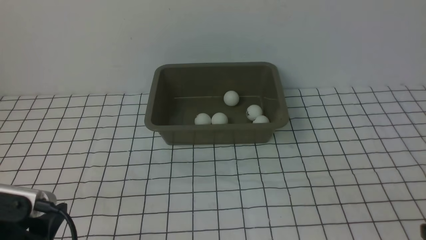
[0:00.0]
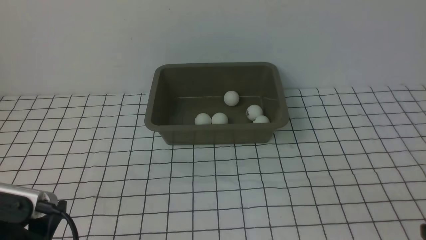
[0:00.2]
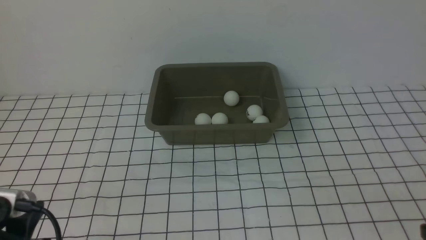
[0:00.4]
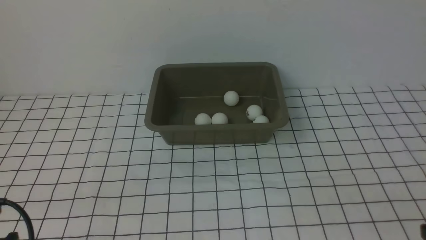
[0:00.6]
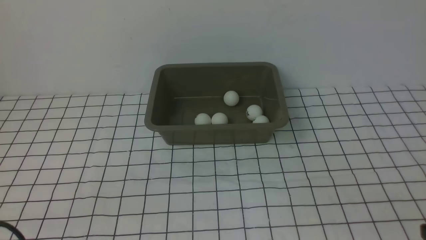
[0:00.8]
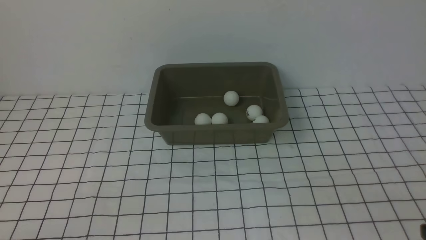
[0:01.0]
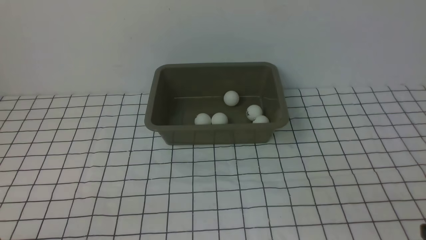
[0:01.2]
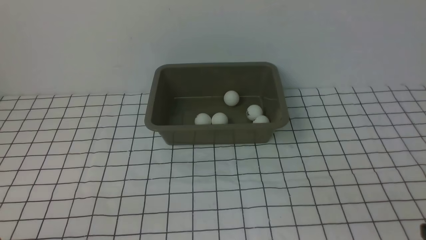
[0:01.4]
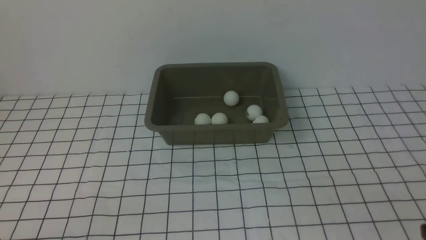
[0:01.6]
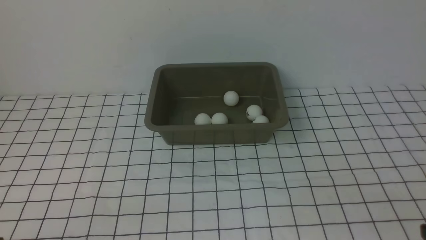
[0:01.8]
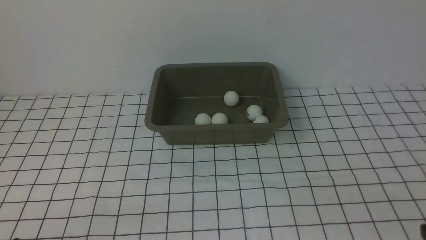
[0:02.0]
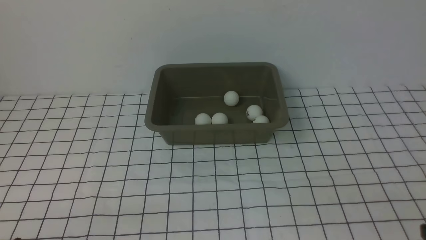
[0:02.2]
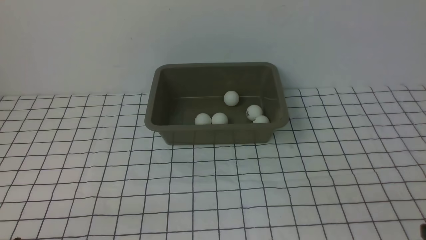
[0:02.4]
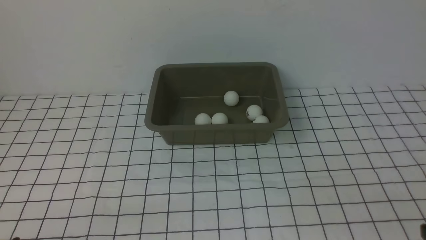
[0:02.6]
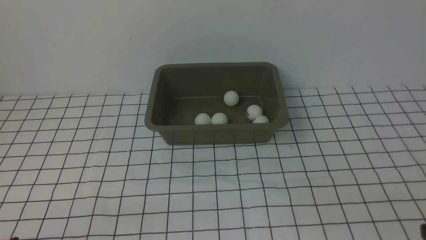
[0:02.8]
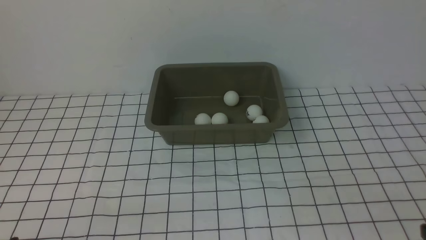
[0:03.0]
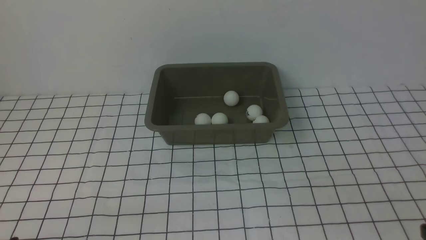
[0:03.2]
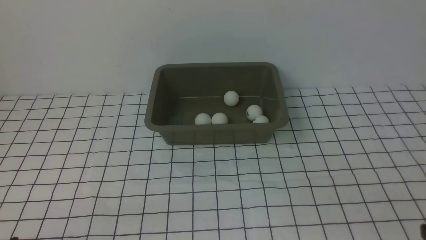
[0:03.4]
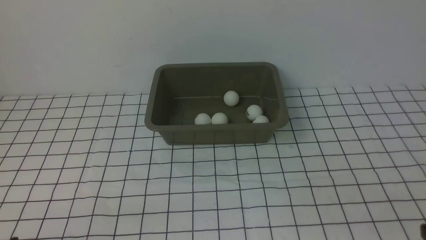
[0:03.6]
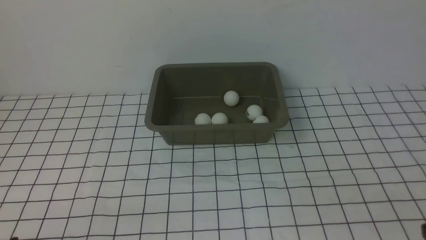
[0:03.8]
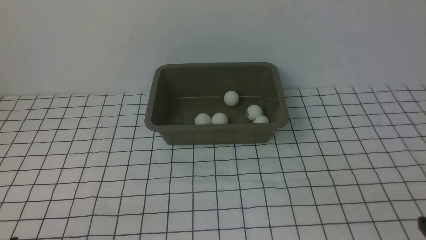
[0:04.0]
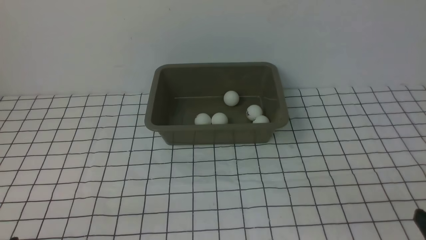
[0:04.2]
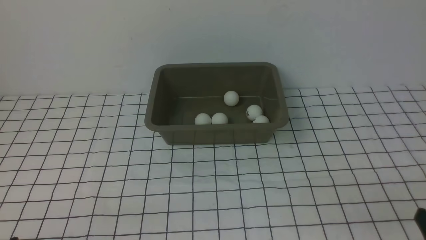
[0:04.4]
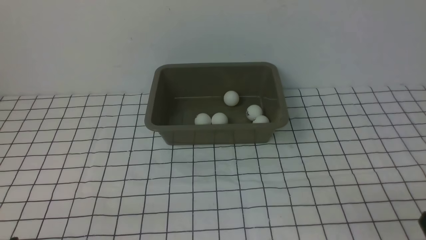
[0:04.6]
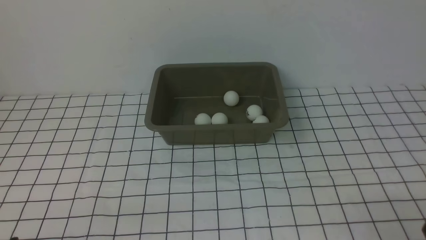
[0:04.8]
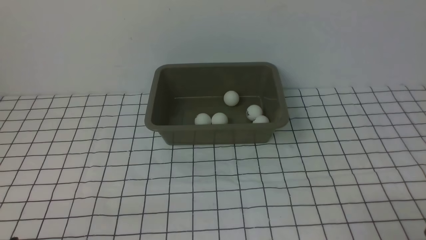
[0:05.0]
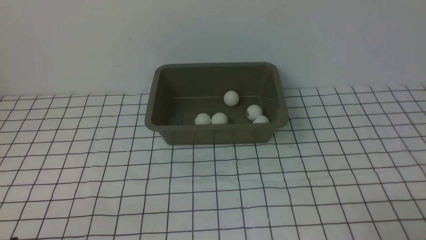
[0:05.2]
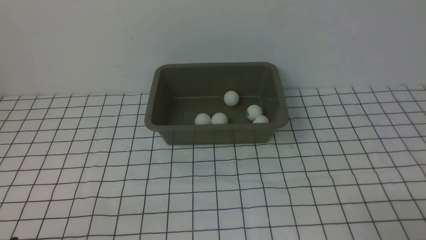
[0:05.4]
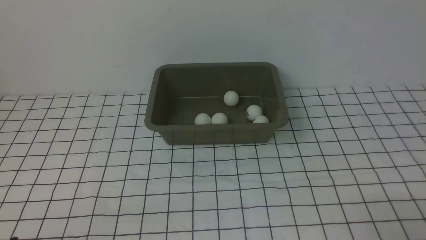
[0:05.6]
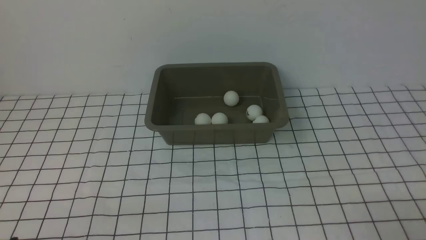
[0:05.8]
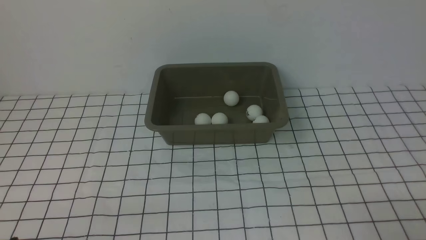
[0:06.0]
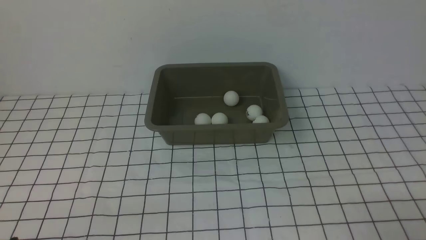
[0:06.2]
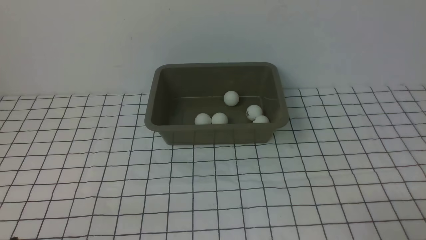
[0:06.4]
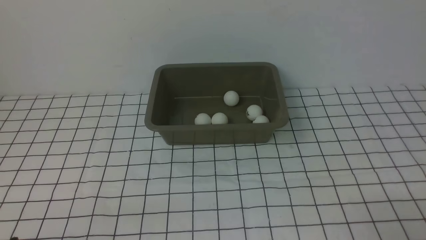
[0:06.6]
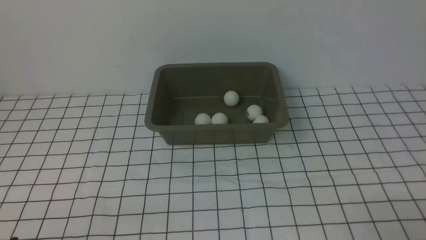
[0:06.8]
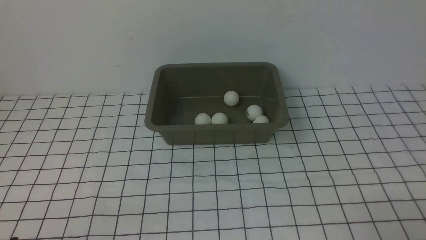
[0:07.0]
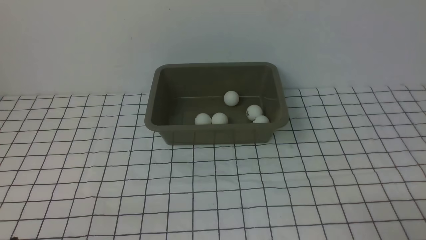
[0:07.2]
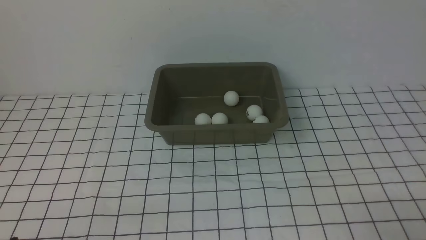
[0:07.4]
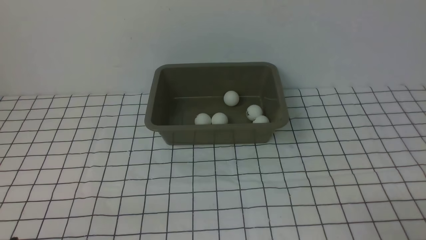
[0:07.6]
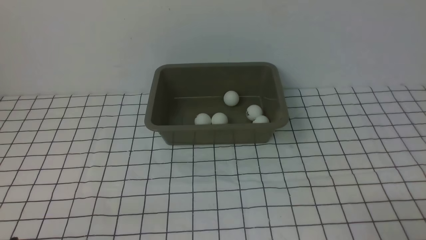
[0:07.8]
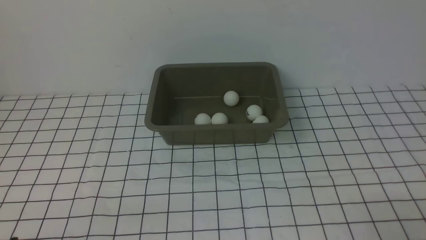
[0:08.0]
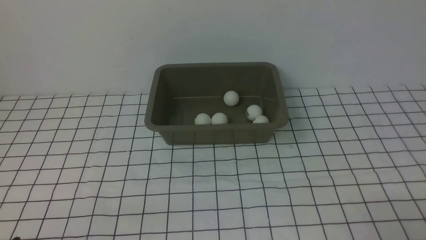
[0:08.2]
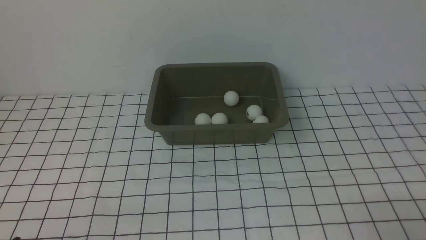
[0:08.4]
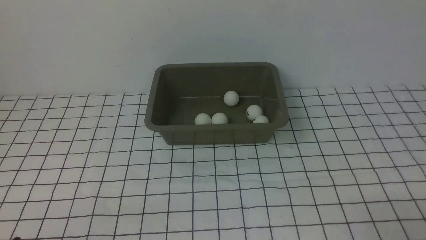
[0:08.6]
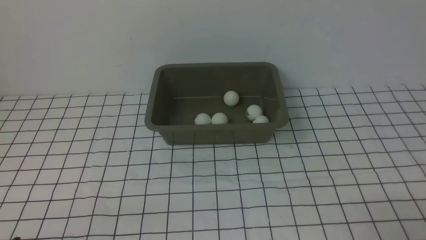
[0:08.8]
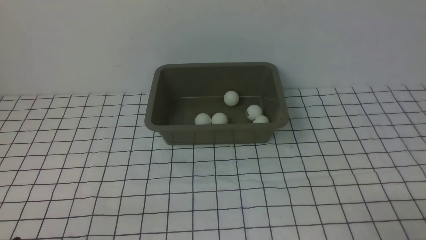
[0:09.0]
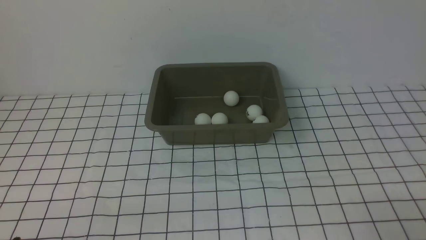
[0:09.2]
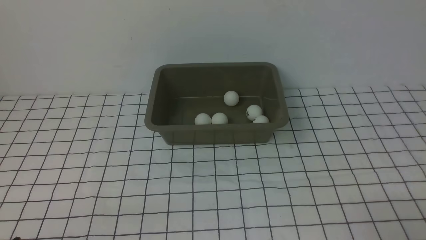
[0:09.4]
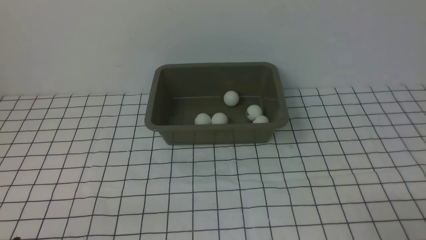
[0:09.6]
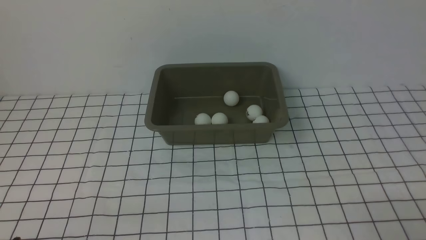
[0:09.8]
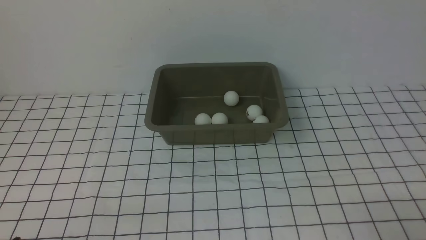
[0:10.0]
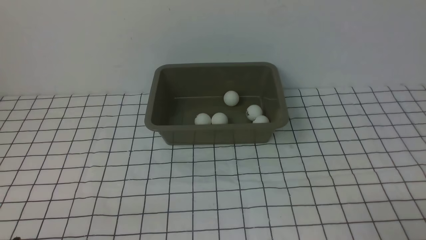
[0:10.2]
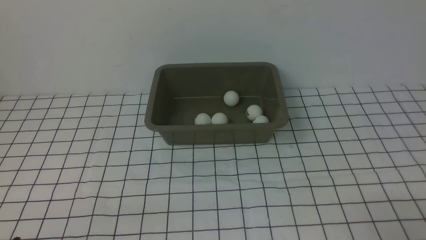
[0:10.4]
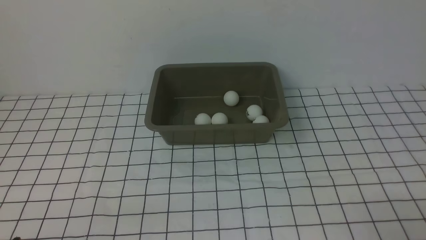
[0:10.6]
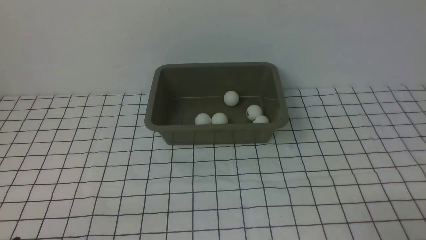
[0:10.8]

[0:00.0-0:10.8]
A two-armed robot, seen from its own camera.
0:00.0 to 0:01.6: The left gripper moves downward and backward, about 10 cm.
0:06.2 to 0:10.8: Neither gripper changes place.
